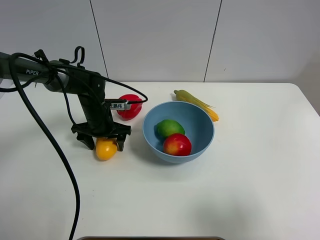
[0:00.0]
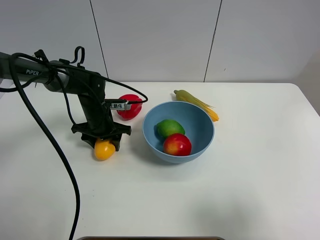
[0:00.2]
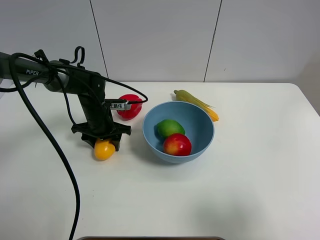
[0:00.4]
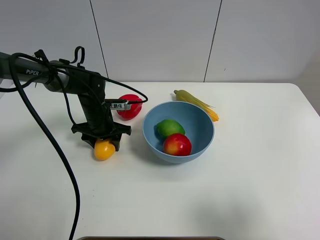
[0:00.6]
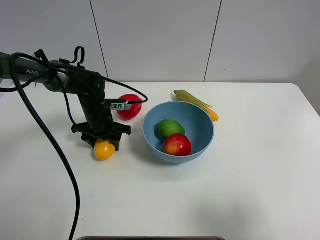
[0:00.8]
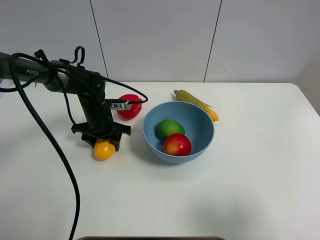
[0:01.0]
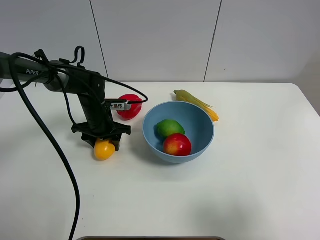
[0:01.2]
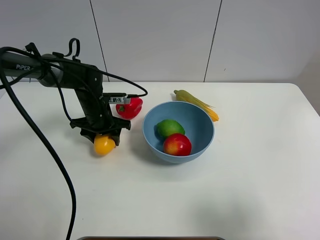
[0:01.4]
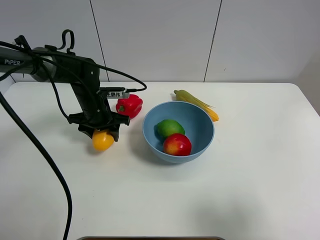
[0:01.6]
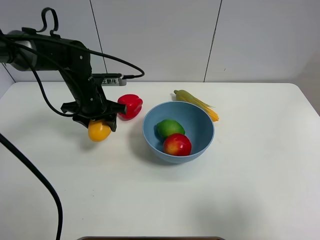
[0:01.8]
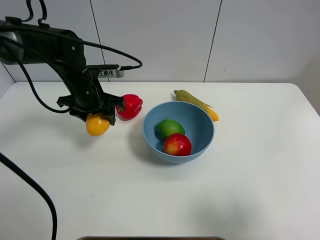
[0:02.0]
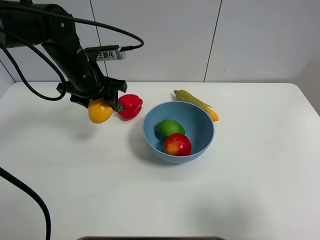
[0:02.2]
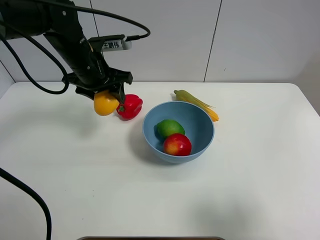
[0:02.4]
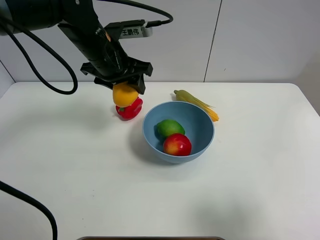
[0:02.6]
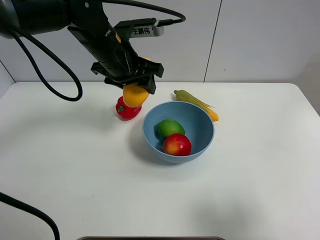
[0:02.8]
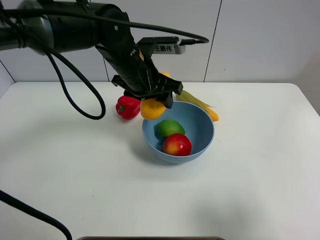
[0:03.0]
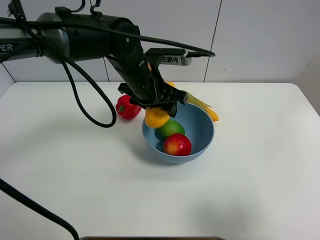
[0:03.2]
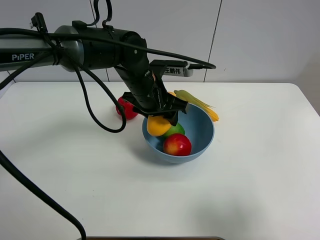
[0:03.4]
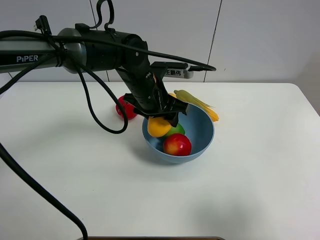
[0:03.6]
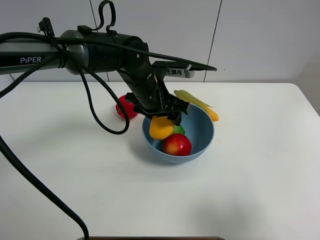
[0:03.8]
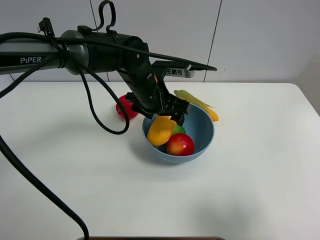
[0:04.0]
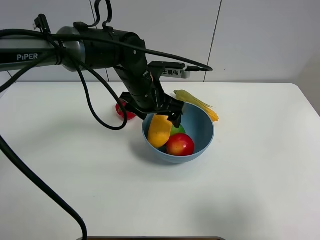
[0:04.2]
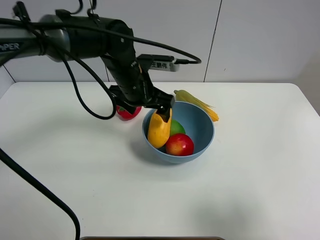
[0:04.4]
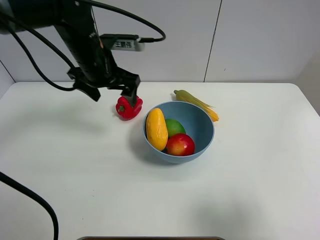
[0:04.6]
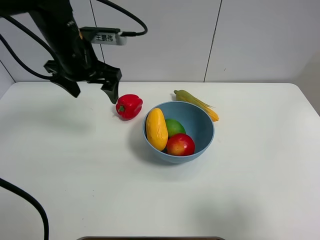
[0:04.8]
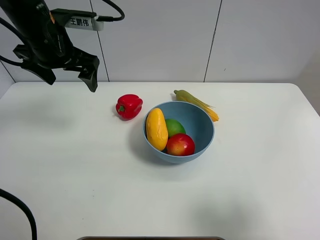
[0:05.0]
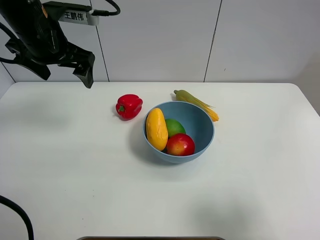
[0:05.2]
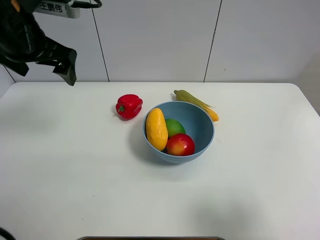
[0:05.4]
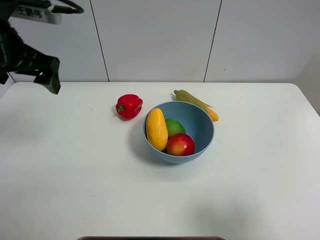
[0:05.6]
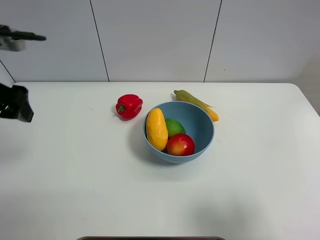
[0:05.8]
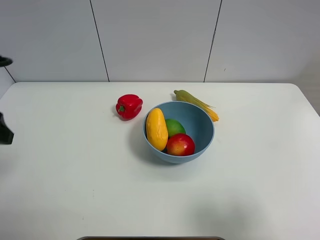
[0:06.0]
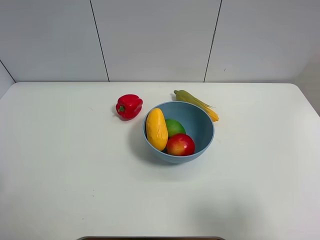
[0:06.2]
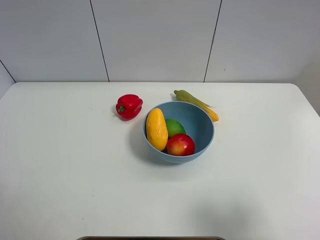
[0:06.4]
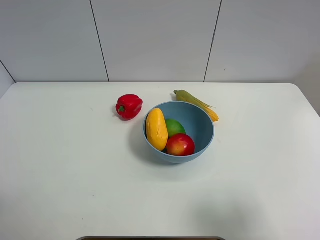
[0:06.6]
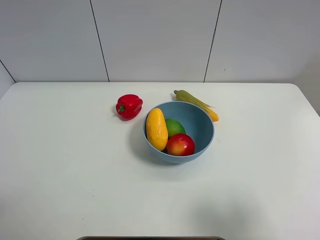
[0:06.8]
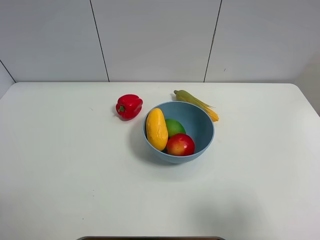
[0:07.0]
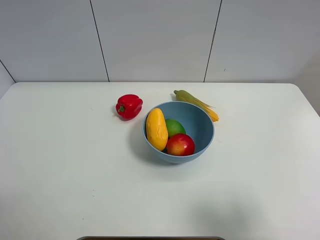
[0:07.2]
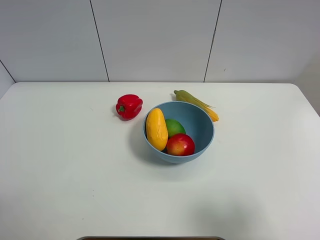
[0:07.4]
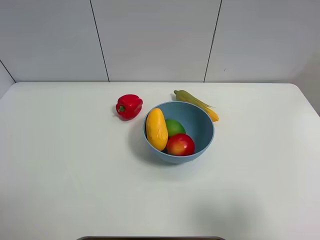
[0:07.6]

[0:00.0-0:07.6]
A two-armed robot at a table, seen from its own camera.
Task of the whole recording: Put the three fruits on the table into a bowl.
Step, 0.4 to 4.4 s: Place the mango in the blue bowl with left gripper.
0.0 to 1.6 s: The left gripper closes up.
1.6 to 3.0 s: The left gripper goes approximately 15 cm to the right and upward.
3.0 to 4.6 s: The left gripper shifts about 10 cm to the left, and opens its fingers.
4.6 to 6.0 s: The left gripper travels backward and to the left by about 25 cm.
6.0 to 7.6 s: The left gripper heads backward and downward, covering approximately 15 cm.

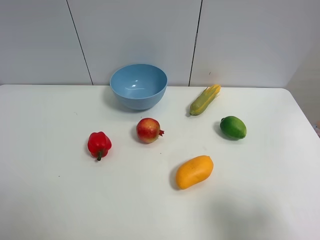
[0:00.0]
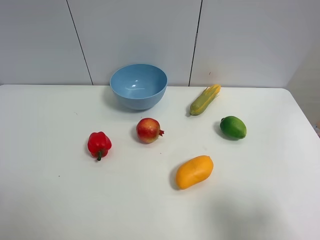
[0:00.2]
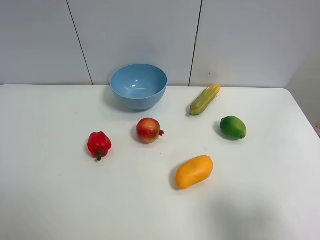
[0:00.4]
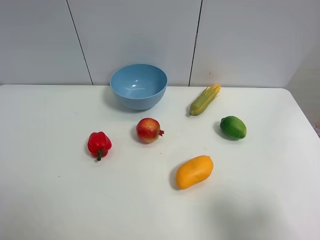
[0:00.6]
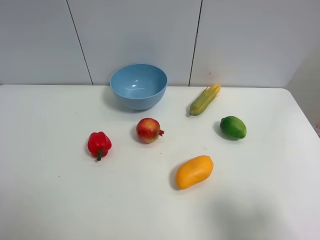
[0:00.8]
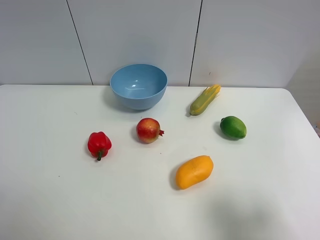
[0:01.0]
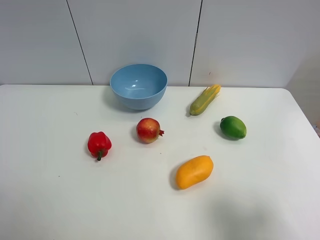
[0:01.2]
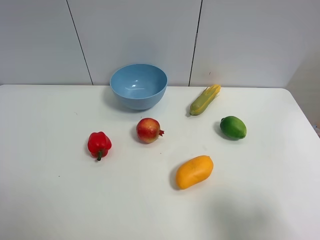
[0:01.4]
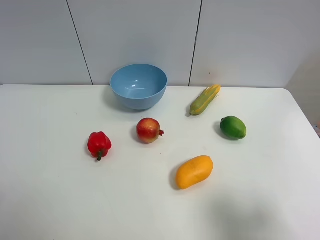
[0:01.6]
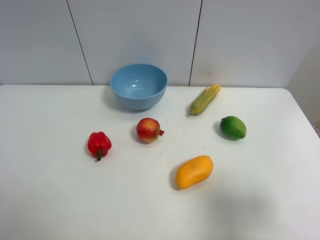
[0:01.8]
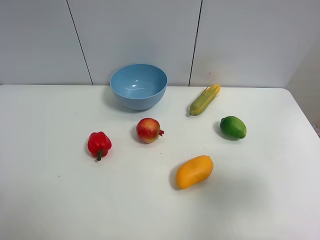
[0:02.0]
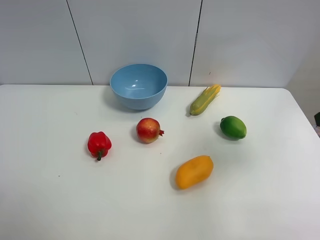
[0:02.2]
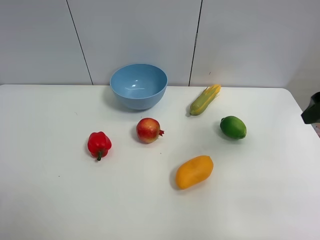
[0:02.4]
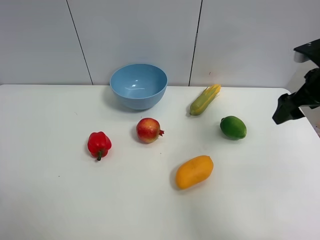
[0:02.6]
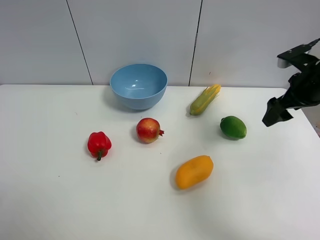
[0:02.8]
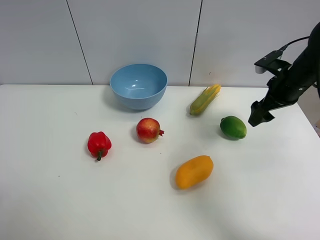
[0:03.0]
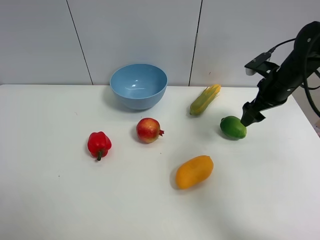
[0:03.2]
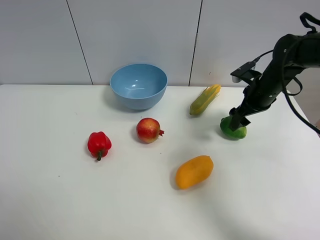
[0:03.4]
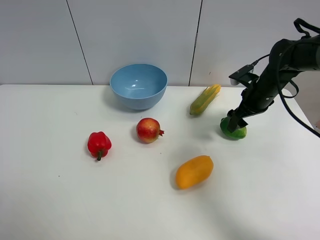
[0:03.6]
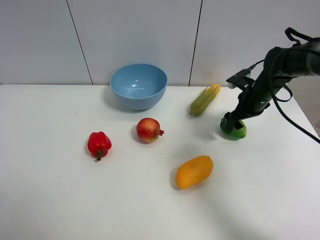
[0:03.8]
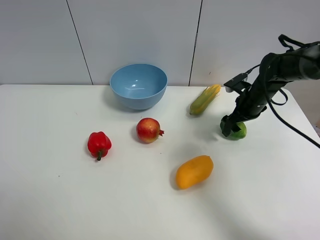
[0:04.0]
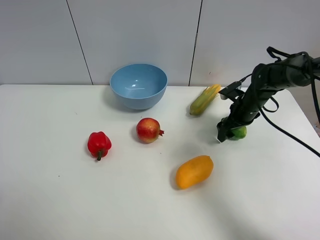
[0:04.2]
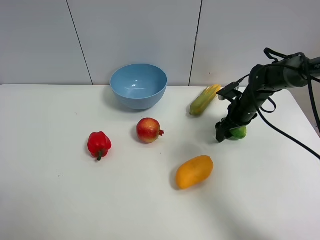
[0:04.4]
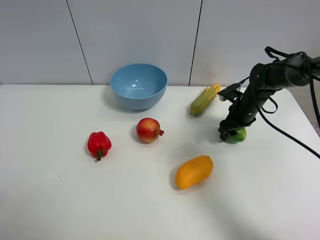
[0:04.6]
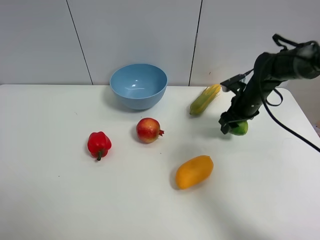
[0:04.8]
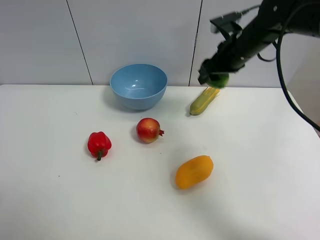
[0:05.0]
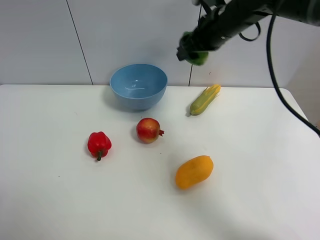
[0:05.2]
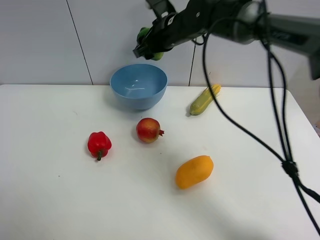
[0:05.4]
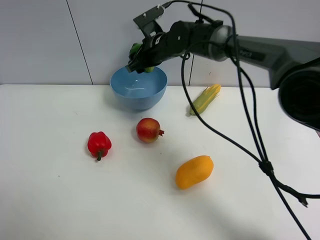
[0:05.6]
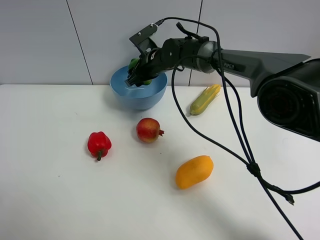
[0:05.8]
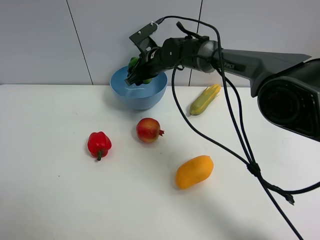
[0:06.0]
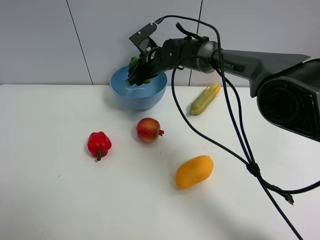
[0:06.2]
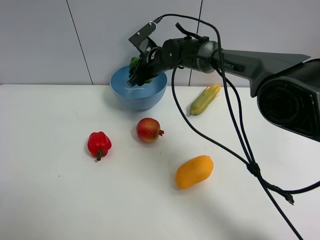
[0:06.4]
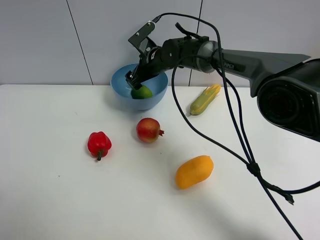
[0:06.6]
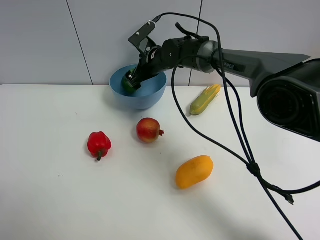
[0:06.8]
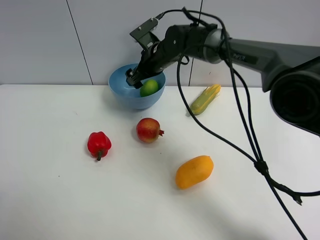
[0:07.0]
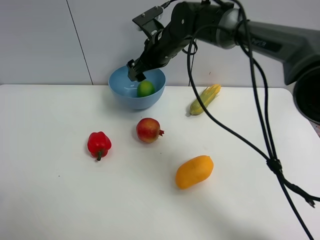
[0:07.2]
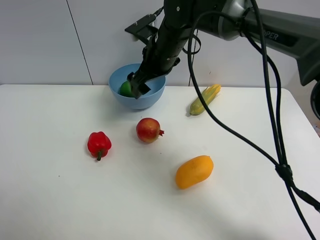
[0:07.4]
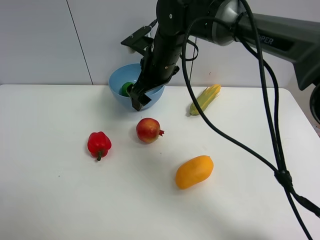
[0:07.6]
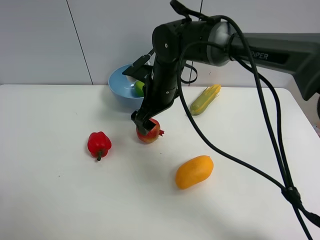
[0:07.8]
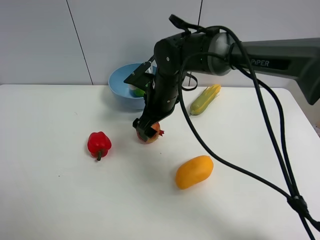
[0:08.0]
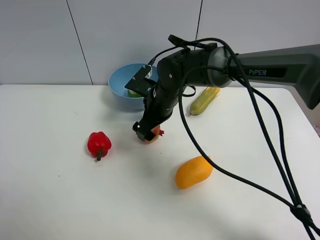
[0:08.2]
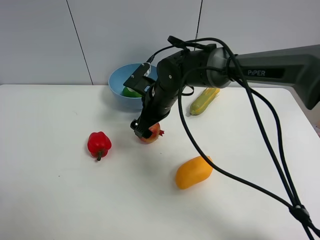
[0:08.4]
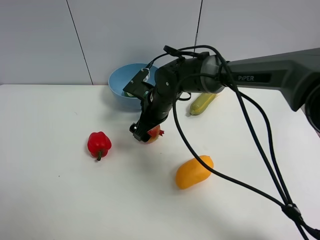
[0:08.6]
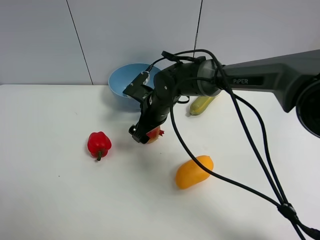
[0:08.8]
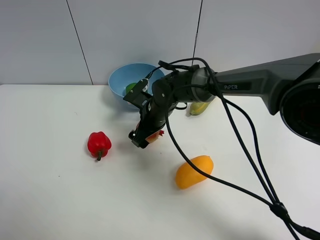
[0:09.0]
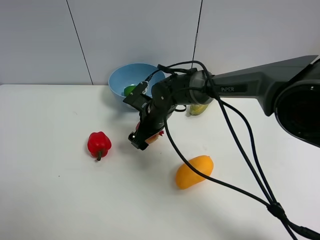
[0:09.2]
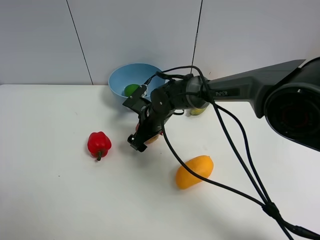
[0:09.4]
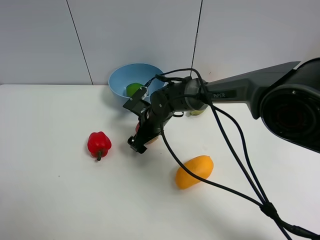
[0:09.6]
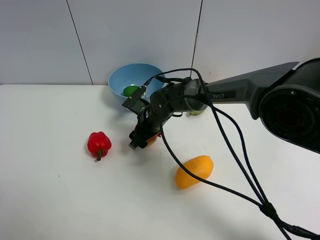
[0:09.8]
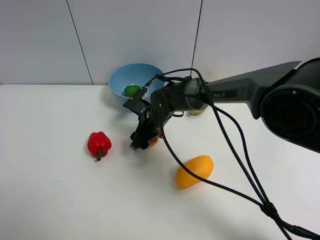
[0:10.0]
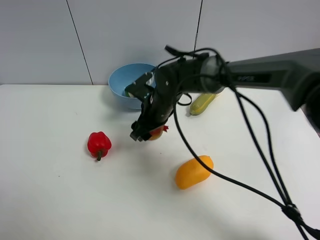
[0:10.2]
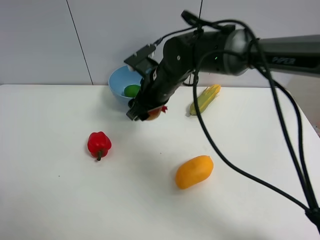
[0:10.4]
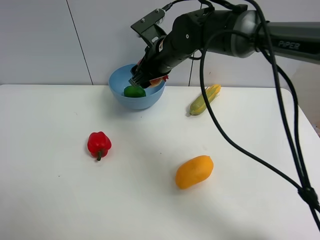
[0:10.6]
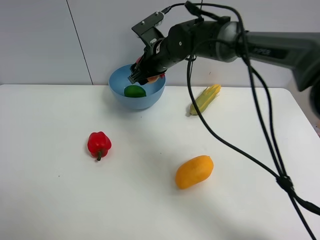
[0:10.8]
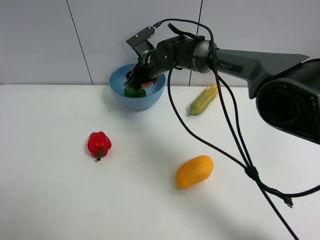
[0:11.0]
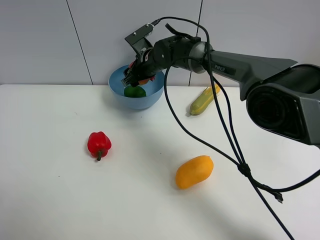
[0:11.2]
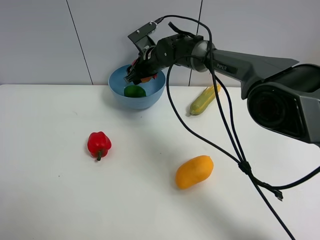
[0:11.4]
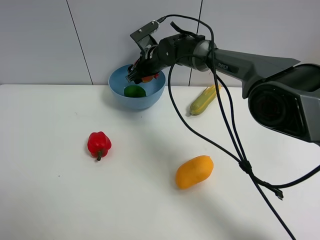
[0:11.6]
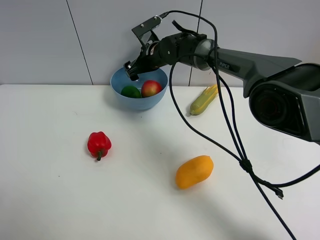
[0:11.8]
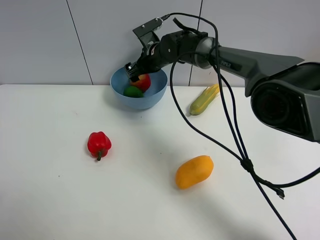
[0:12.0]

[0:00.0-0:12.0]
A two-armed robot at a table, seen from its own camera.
Task of the whole recording: Put the three fruits on the table into a bowl.
Step, 0.0 to 4.4 s: Grasp the green lemon with right gripper.
Step, 4.6 to 7.0 s: Place the green lemon in the blue bowl with right gripper.
Step, 7.2 to 9.8 s: Grasp the pomegranate with right gripper.
Step, 10.0 to 11.8 s: Place the pomegranate in the blue bowl with right gripper.
0.0 to 1.6 s: Both grippers stay about where they are.
1.6 to 3.0 s: The right gripper shifts roughly 35 cm forward.
3.0 to 4.4 s: The right gripper goes some 10 cm downward, and closes.
4.4 to 6.0 s: The right gripper heads to the left, covering some 25 cm, and closes its fingers.
6.0 to 7.6 s: The right gripper heads backward and upward, covering some 10 cm, and opens.
7.6 to 9.0 s: The right gripper shifts some 10 cm downward.
9.0 to 10.4 s: The right gripper travels upward by approximately 10 cm, and closes up.
10.4 to 12.0 s: The right gripper is displaced forward by some 15 cm, and opens its fingers.

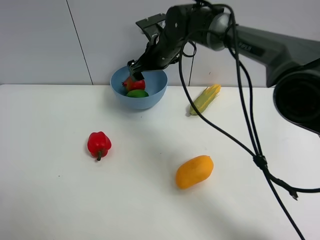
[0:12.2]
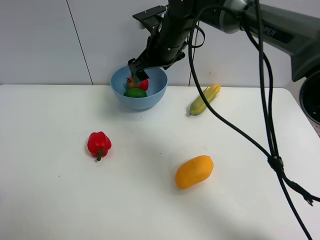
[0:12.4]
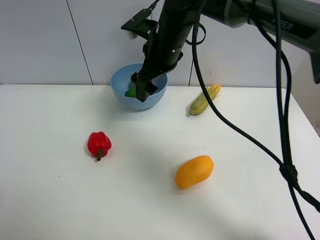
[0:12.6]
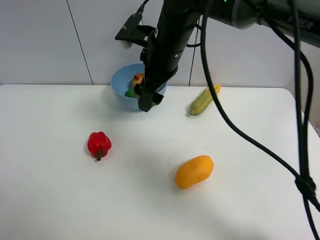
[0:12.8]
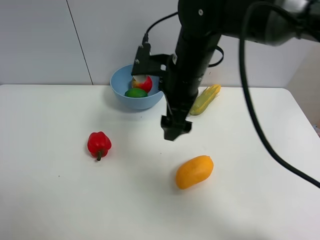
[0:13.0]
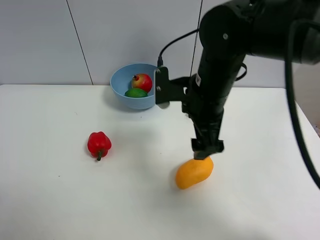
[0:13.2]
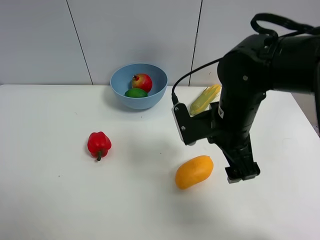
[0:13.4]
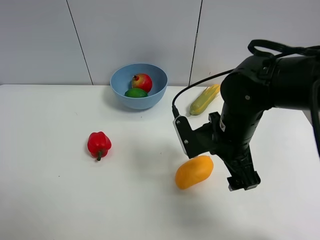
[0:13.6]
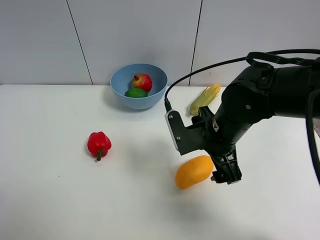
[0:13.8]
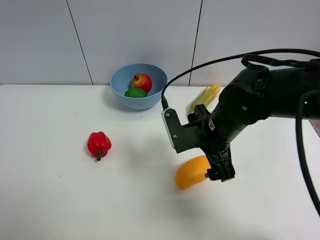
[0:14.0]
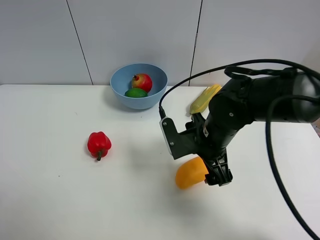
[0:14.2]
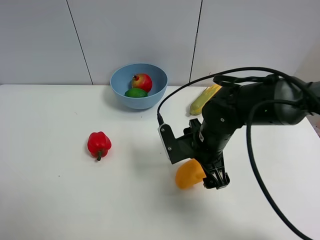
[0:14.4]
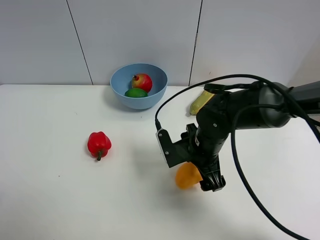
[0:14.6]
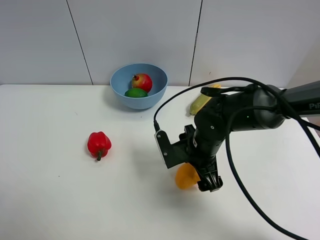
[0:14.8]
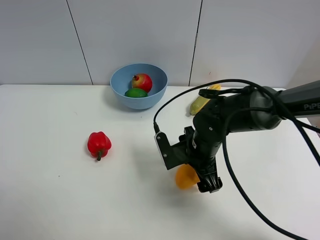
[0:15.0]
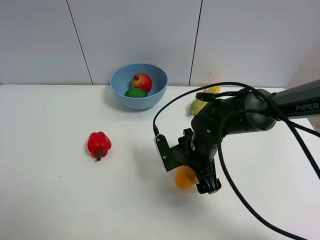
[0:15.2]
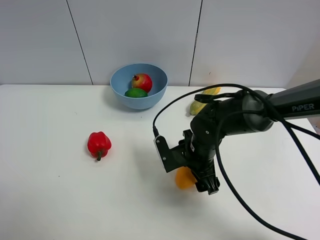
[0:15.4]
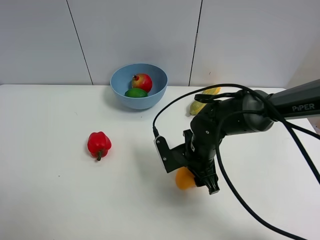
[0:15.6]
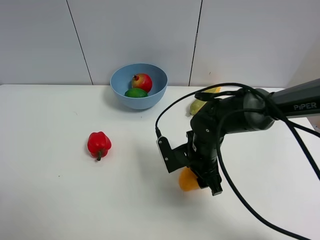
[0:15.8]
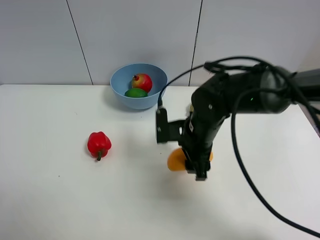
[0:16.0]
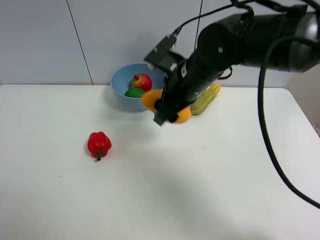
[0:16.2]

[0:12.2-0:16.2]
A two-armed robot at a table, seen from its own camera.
Task of the whole recording: Put the three fruits on the table into a bowl.
Step, 12.2 to 15.6 s: Grasp the mango with right gripper.
12.2 to 13.6 s: The right gripper goes roughly 25 cm backward and to the right.
13.6 to 14.8 s: The right gripper moves downward, about 10 cm.
14.8 to 16.2 s: The right gripper shifts roughly 15 cm upward, and closes up.
